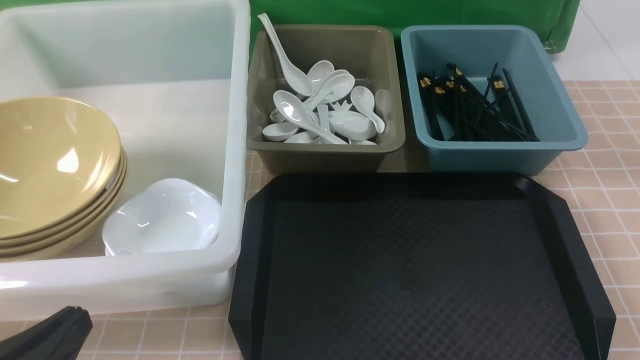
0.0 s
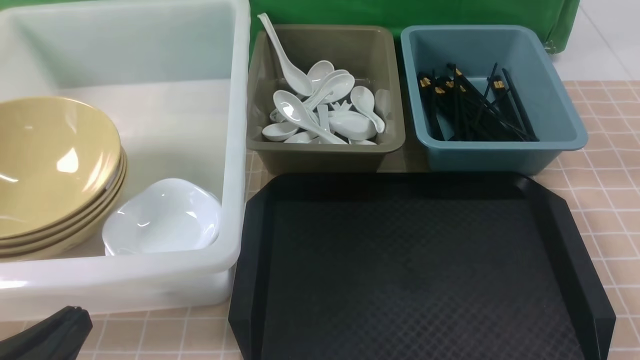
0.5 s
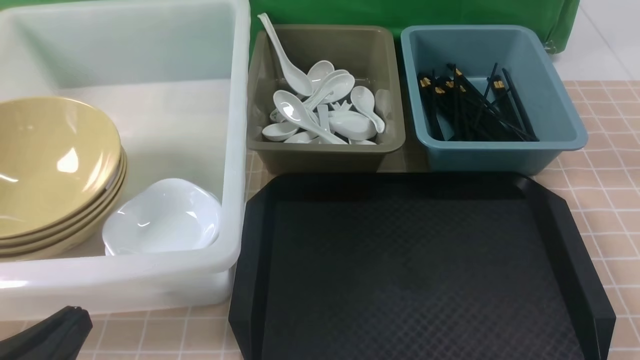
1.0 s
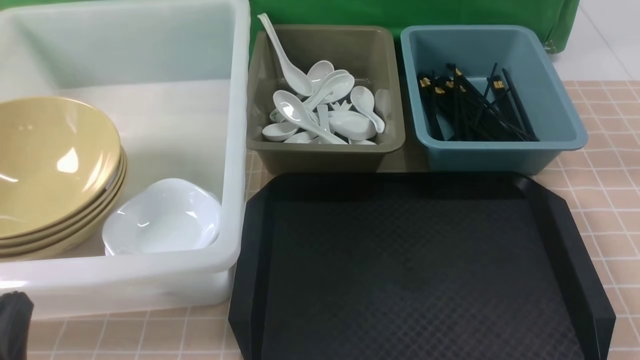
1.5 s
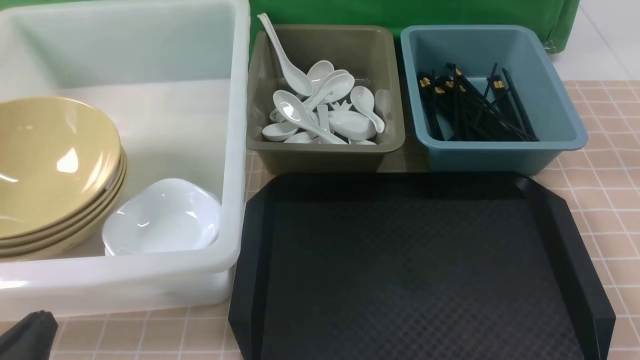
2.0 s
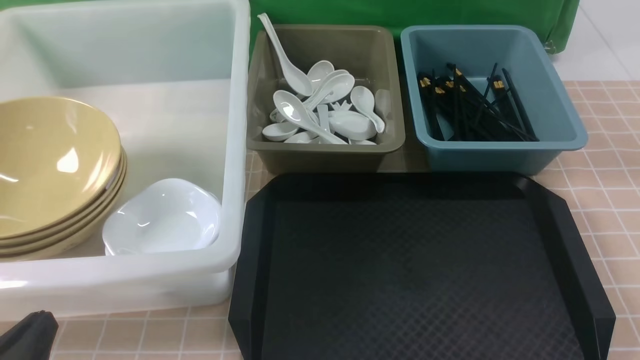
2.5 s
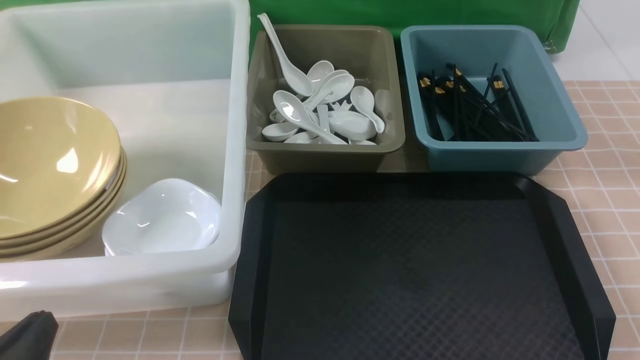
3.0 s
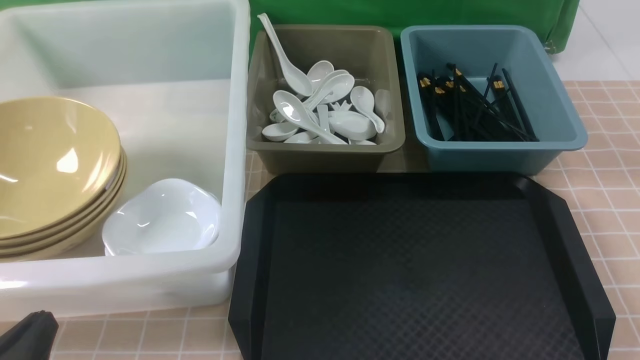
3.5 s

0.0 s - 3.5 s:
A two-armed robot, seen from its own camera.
Task of the whole recording: on brown table put chopsticks spoon bowls plates into blue grey white boxes.
0.0 s - 2.0 s: The left gripper ends up approximately 5 cm from where it was.
2.0 s - 3.5 s: The two grippers keep their place.
